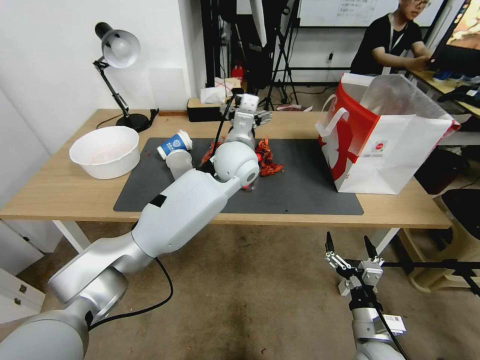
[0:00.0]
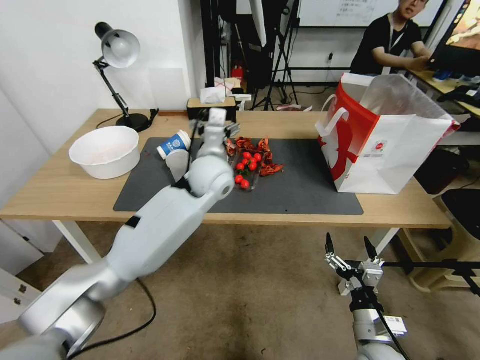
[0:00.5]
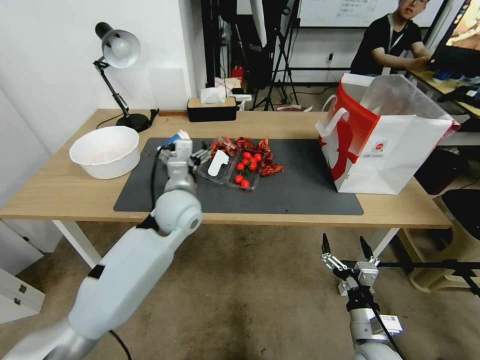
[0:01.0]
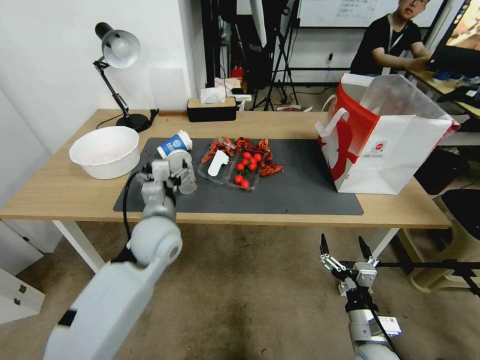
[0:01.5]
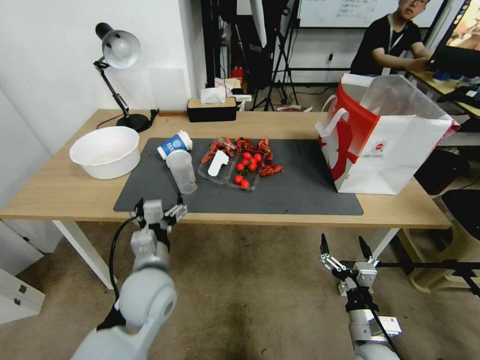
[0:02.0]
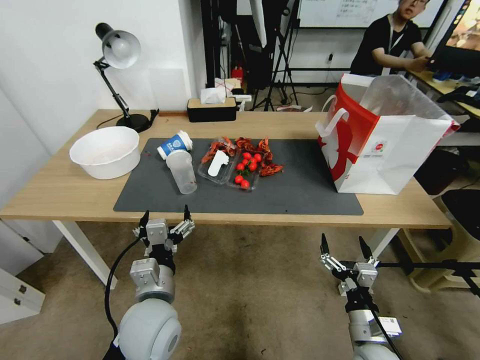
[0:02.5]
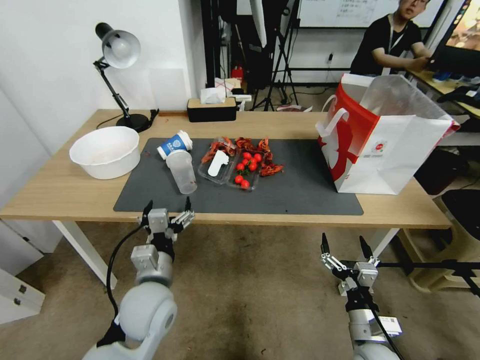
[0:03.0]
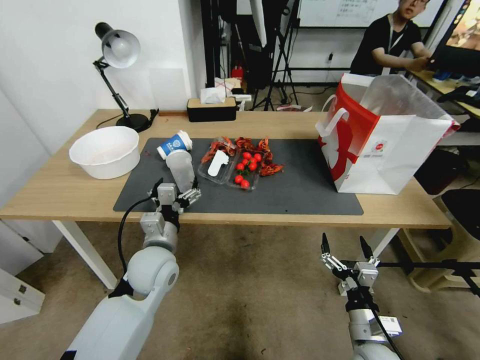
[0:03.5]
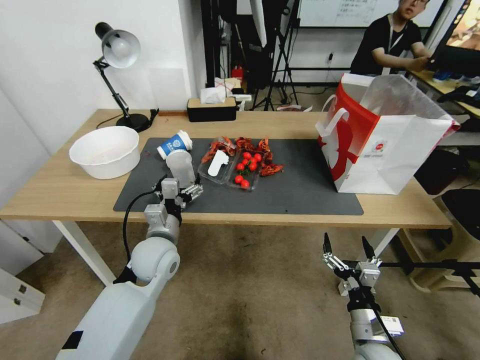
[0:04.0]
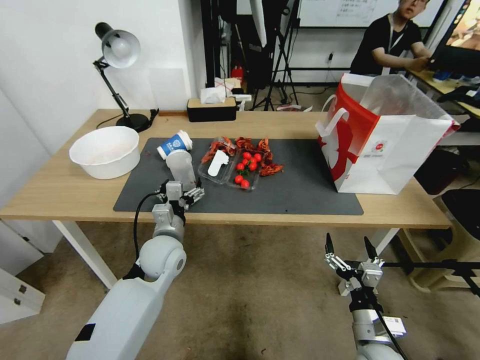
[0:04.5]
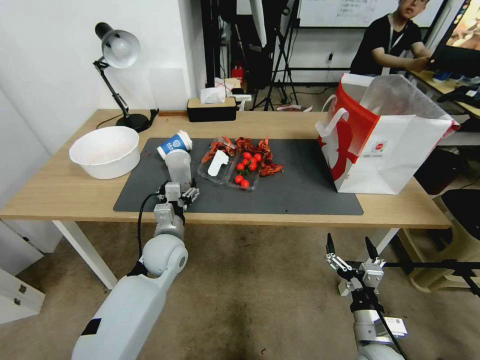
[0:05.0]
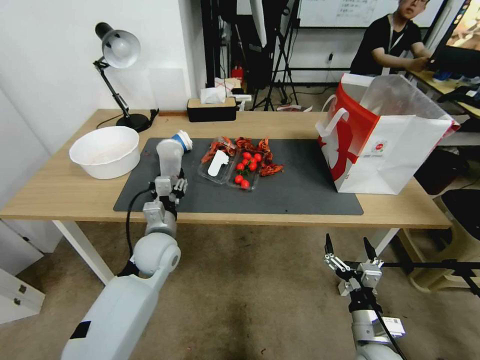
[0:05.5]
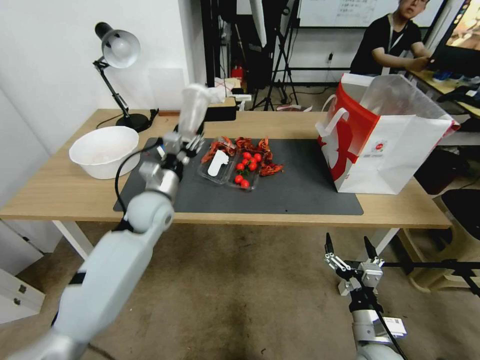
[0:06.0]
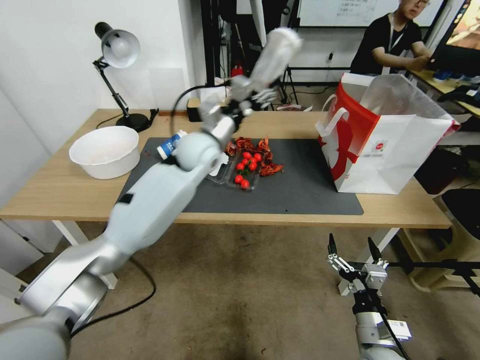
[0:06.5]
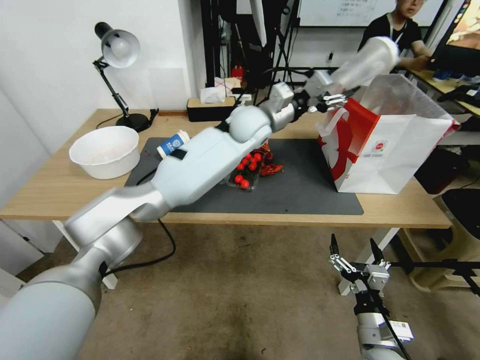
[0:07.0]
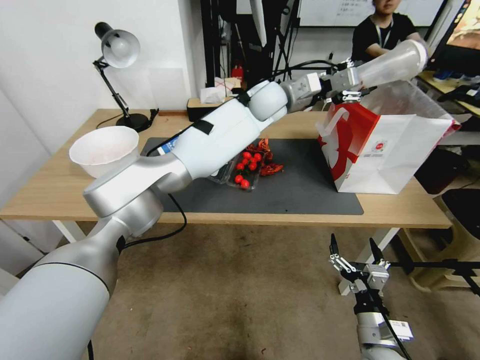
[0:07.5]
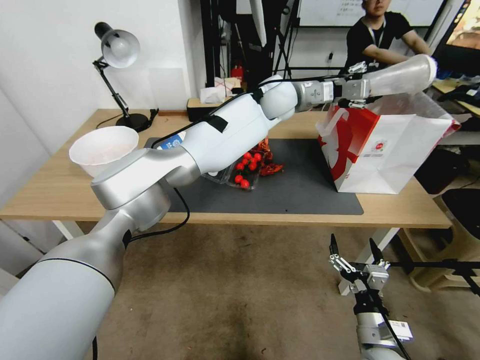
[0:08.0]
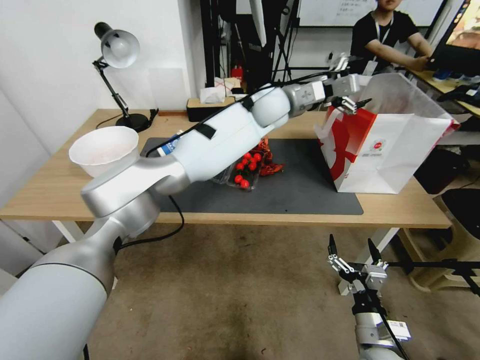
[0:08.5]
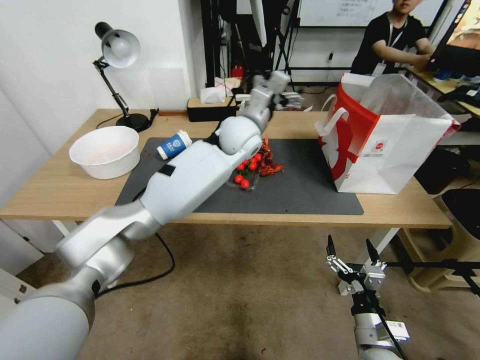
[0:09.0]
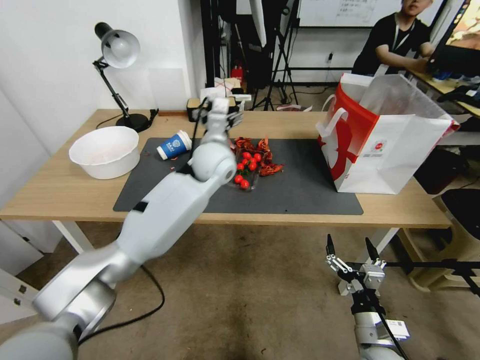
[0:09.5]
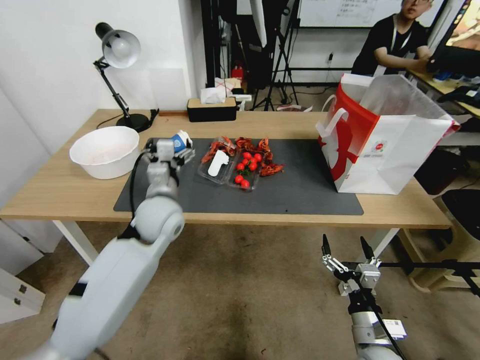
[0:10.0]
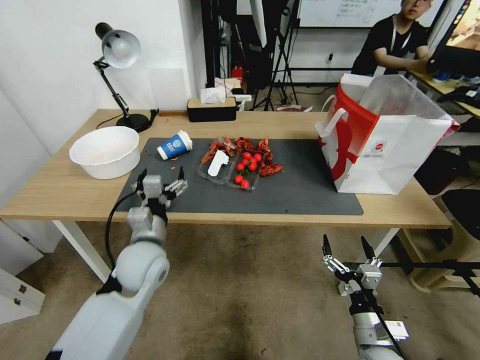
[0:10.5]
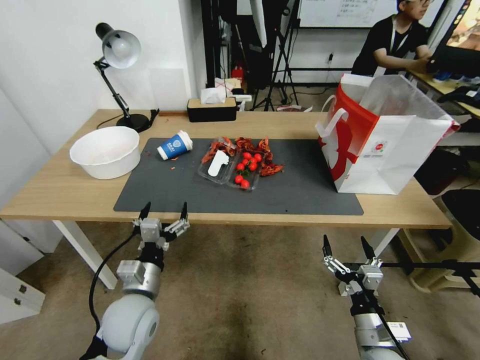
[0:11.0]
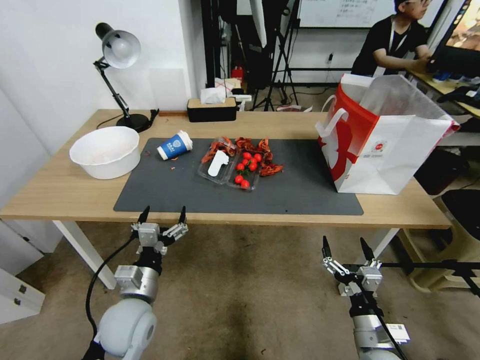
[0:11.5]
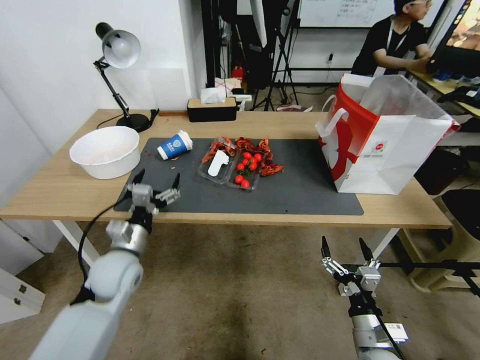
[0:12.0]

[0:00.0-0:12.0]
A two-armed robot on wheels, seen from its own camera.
0.0 to 2.0 s: The left gripper travels backward, to the left and downward by about 30 cm.
2.0 to 4.0 s: The left gripper moves forward, some 5 cm.
4.0 to 6.0 s: The left gripper travels forward and upward by some 10 cm, and closes.
6.0 to 8.0 s: The left gripper goes about 40 cm to the right, upward and forward.
8.0 to 10.0 s: The left gripper goes approximately 35 cm to the left, backward and downward, and opens.
10.0 to 12.0 s: The left gripper heads to the left, backward and downward, covering about 15 cm.

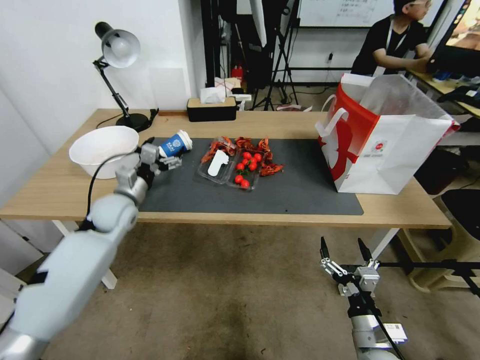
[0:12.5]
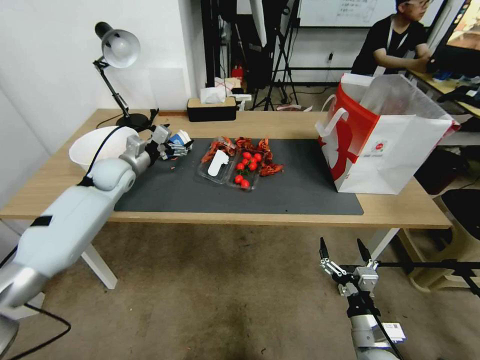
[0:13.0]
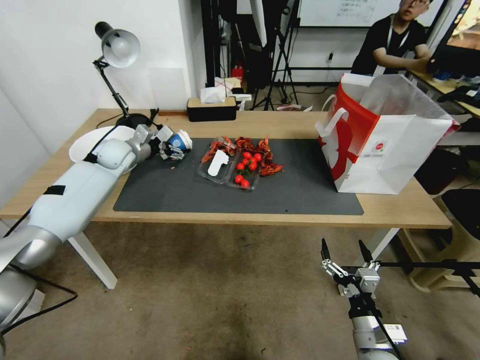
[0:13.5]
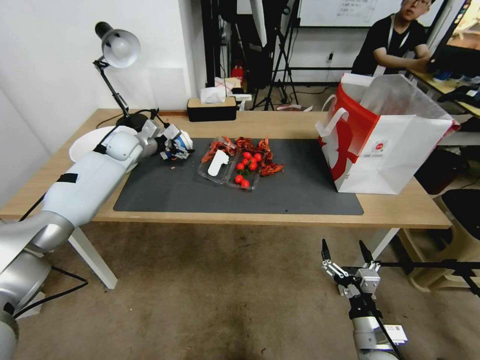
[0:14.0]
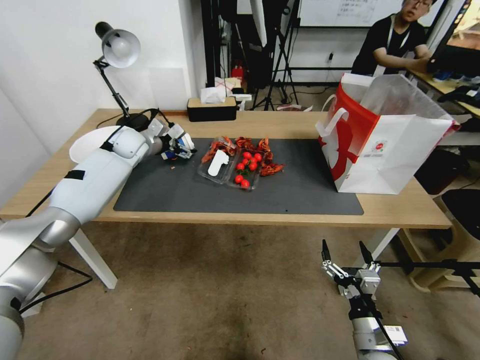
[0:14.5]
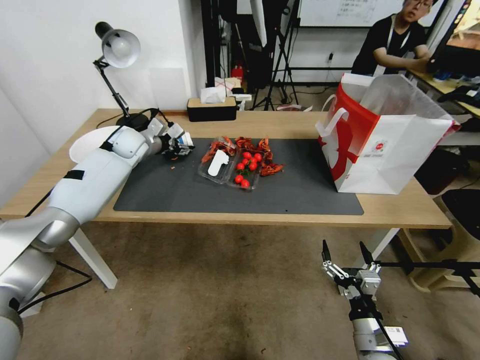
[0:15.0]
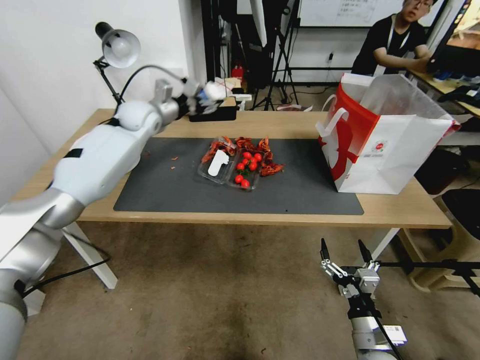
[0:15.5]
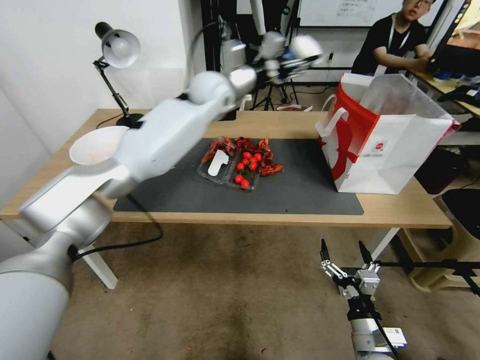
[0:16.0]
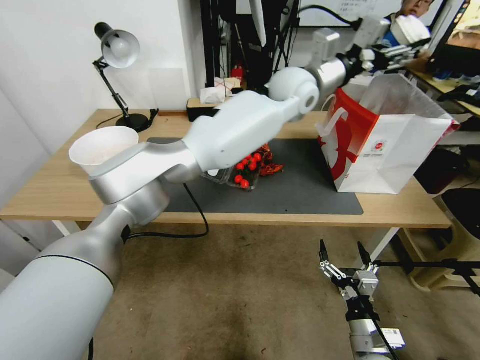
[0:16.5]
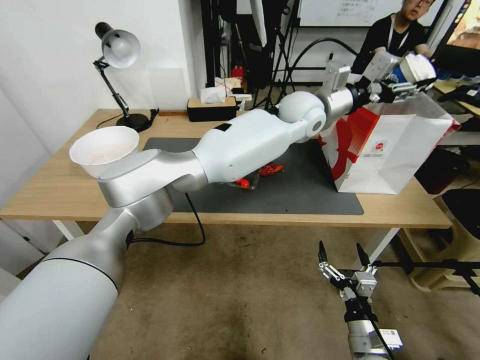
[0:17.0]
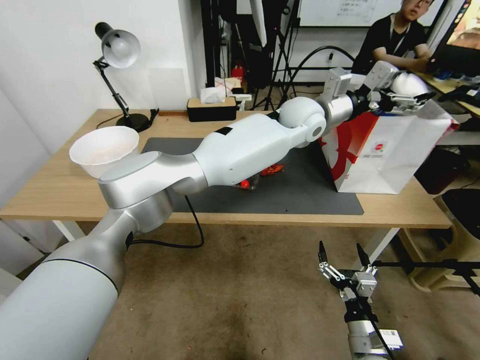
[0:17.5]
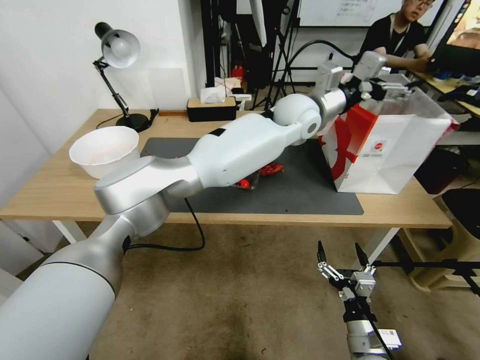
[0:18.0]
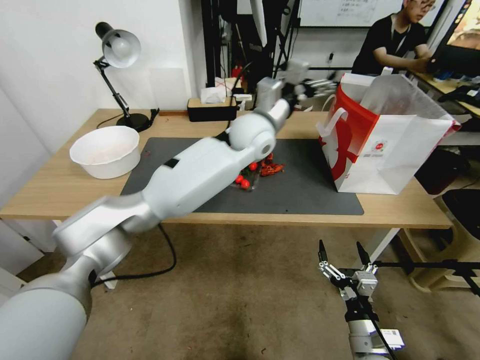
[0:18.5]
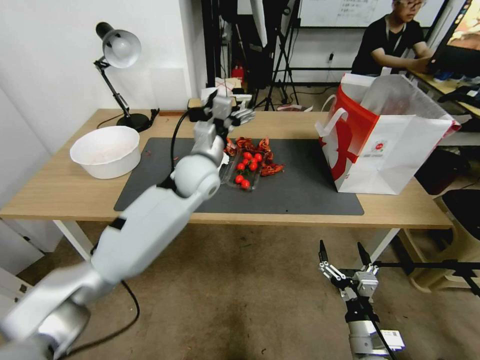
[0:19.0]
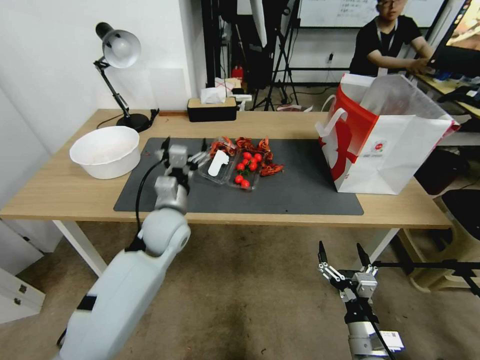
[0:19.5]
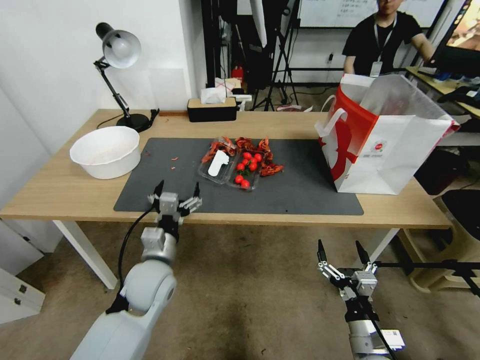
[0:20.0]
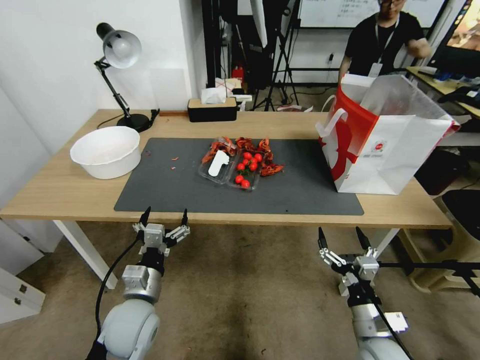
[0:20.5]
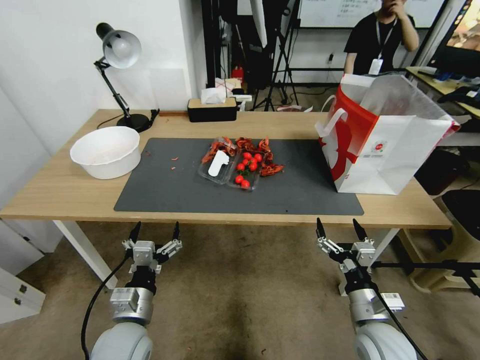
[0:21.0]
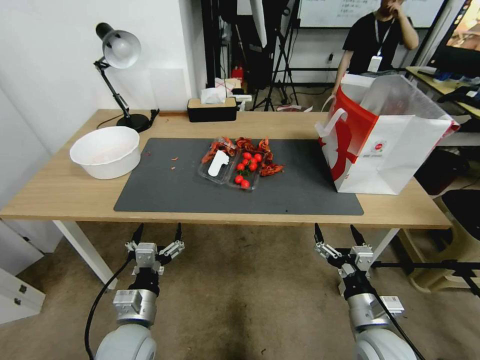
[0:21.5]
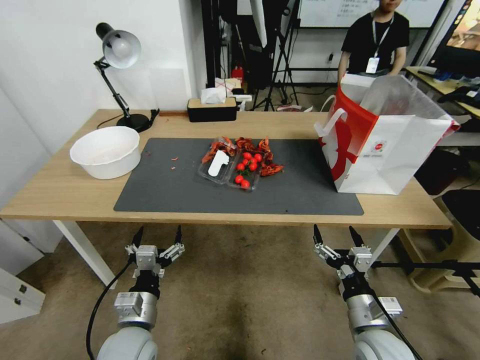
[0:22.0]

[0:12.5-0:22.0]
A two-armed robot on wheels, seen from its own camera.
12.5 to 14.5 s: The left gripper goes roughly 20 cm forward.
14.5 to 16.5 s: The left gripper travels to the right and upward by some 50 cm, and closes its fingers.
16.5 to 18.0 s: The left gripper is displaced downward by roughly 5 cm, and opens up.
18.0 to 20.0 s: The left gripper heads to the left, backward and downward, covering approximately 50 cm.
20.0 to 22.0 s: The right gripper shifts by some 5 cm, while the left gripper is displaced backward and downward by roughly 15 cm.

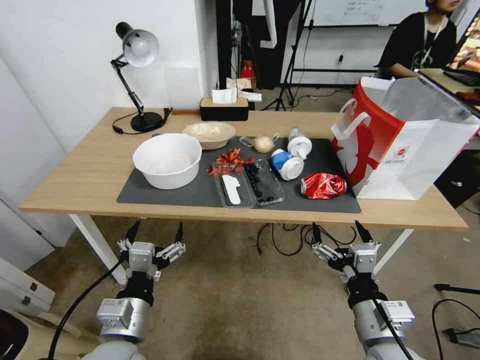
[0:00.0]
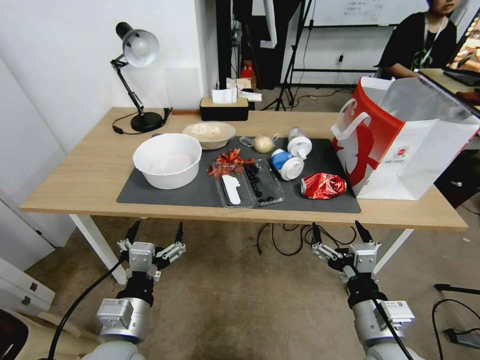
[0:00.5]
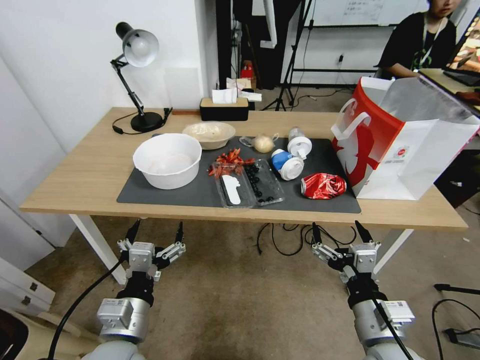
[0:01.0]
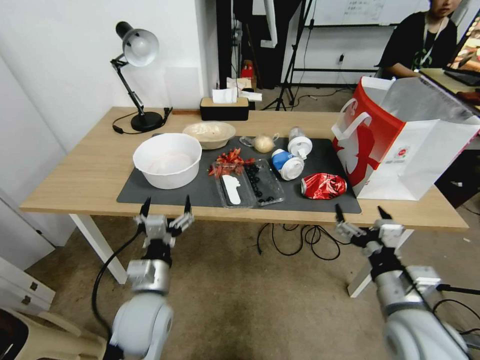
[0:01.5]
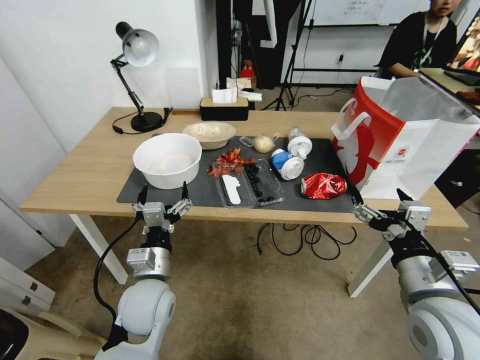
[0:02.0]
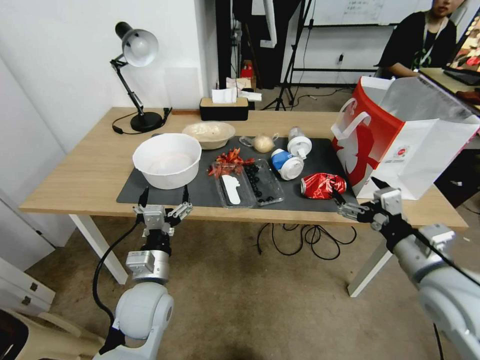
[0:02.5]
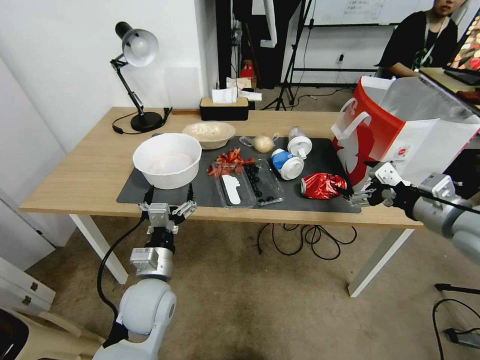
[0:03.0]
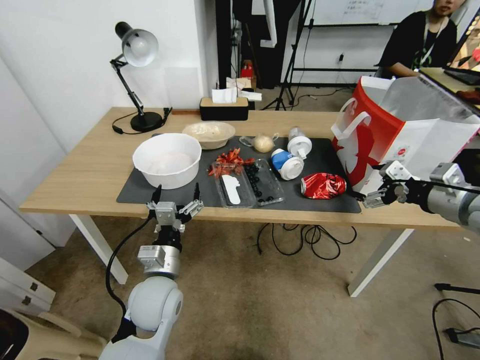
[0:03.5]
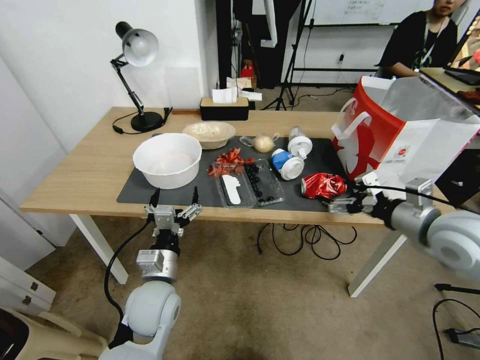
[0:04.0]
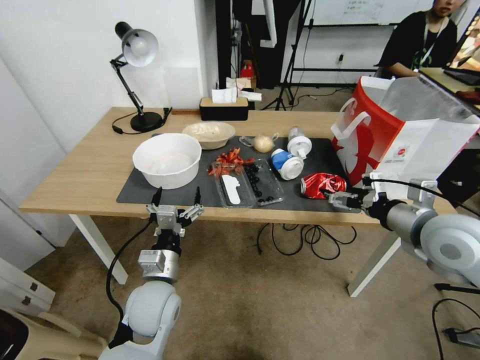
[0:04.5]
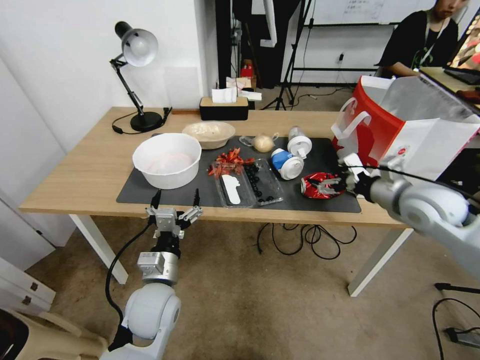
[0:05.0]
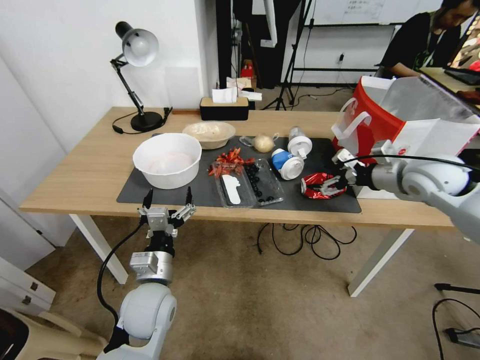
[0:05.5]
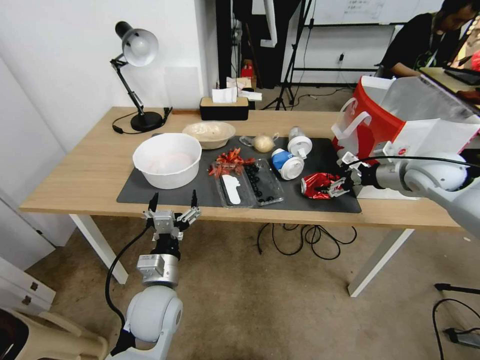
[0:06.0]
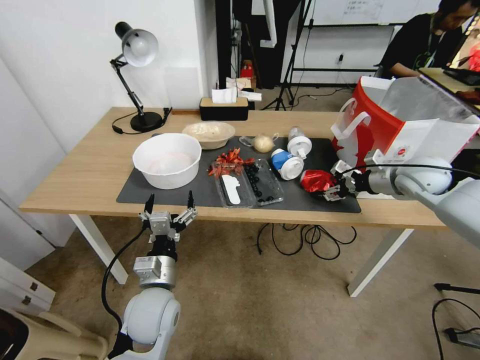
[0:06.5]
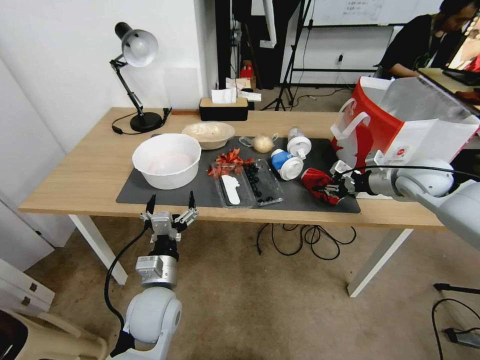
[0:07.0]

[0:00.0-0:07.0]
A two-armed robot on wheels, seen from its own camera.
2.0 to 3.5 s: The right gripper heads forward, to the right and upward, covering approximately 20 cm.
3.5 to 5.0 s: The right gripper heads to the left and forward, covering about 10 cm.
5.0 to 7.0 s: The right gripper heads forward, covering about 10 cm, and closes its fingers.
